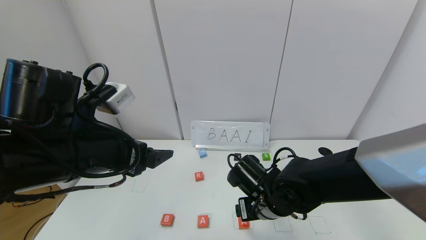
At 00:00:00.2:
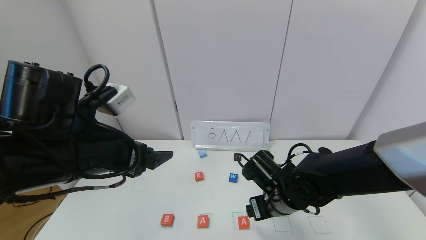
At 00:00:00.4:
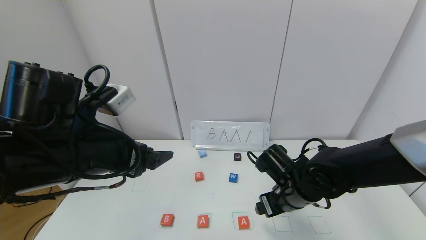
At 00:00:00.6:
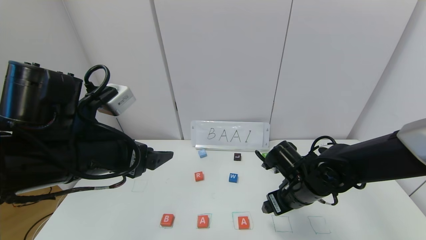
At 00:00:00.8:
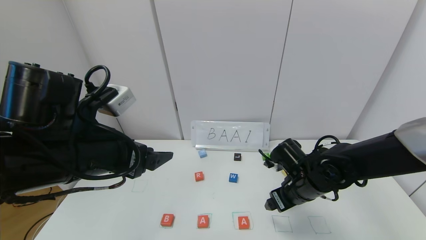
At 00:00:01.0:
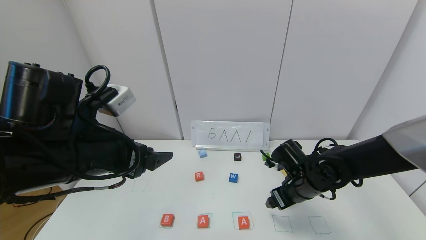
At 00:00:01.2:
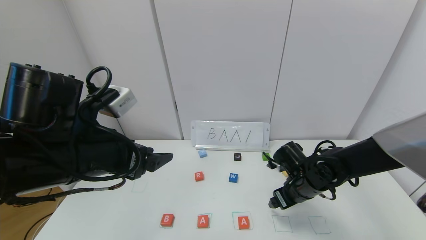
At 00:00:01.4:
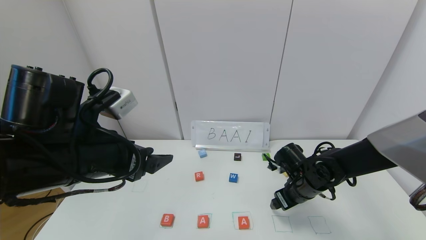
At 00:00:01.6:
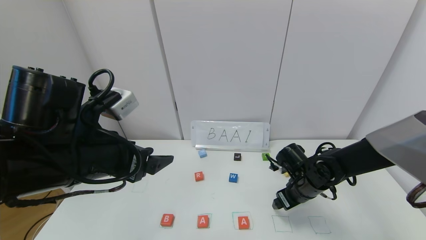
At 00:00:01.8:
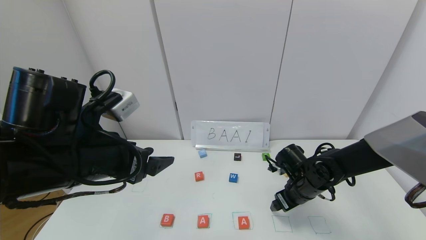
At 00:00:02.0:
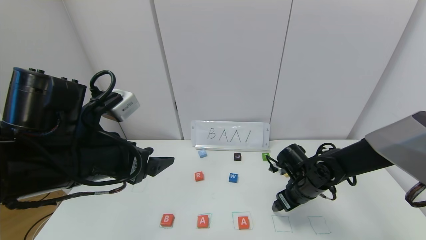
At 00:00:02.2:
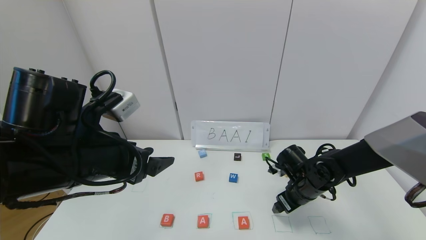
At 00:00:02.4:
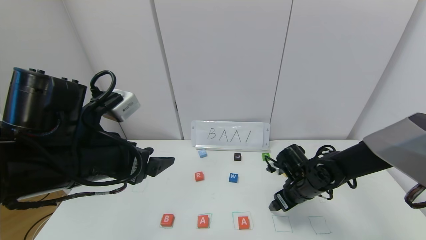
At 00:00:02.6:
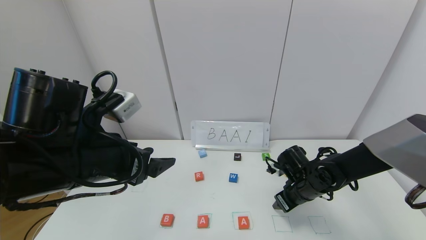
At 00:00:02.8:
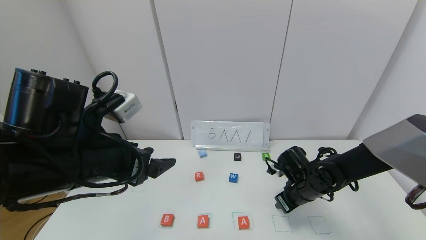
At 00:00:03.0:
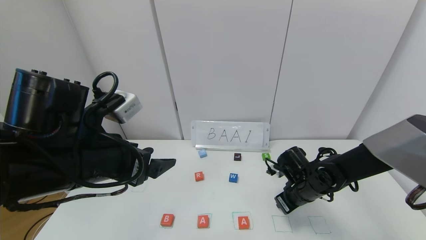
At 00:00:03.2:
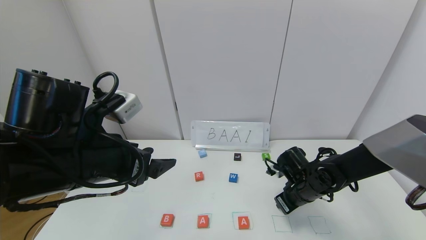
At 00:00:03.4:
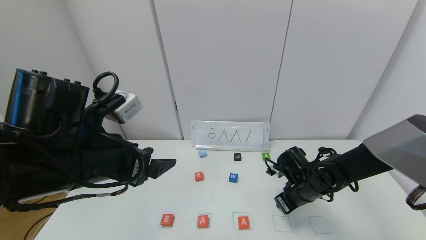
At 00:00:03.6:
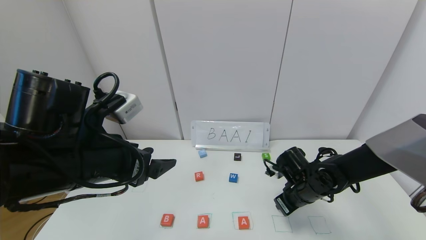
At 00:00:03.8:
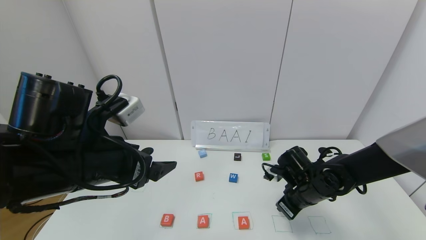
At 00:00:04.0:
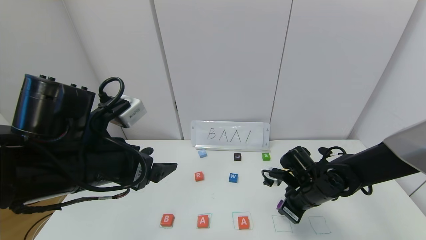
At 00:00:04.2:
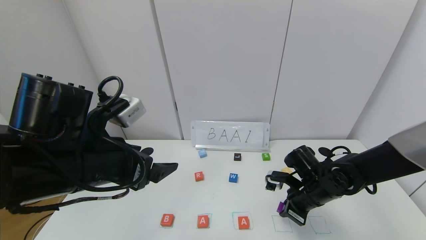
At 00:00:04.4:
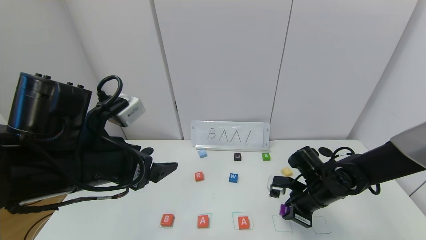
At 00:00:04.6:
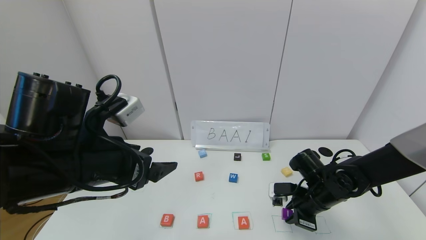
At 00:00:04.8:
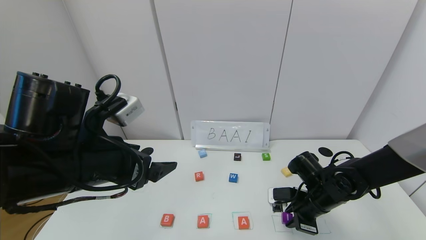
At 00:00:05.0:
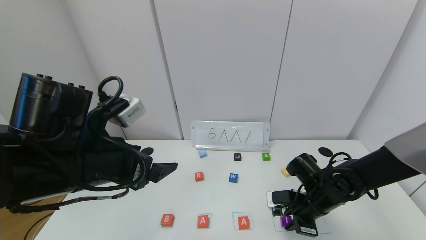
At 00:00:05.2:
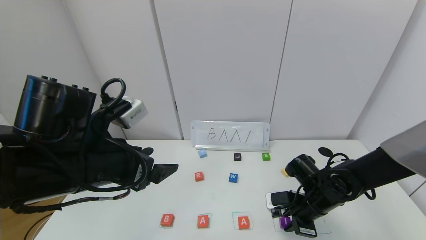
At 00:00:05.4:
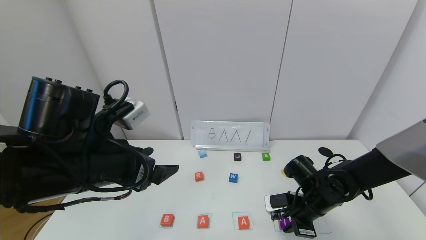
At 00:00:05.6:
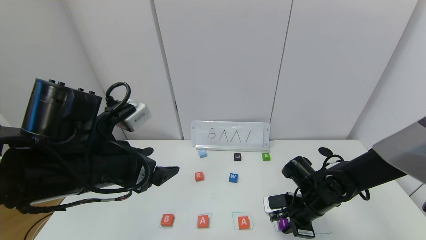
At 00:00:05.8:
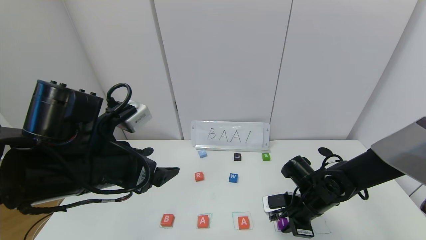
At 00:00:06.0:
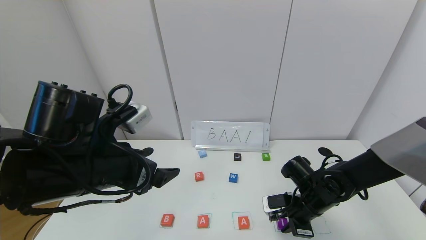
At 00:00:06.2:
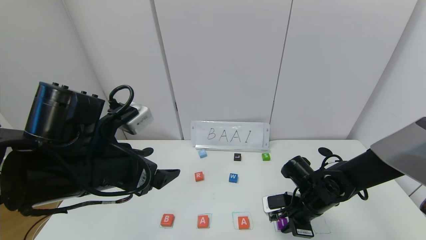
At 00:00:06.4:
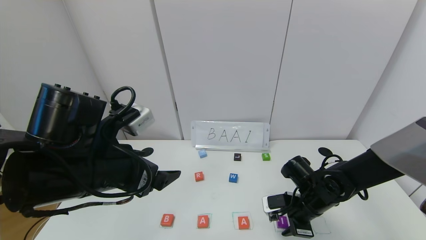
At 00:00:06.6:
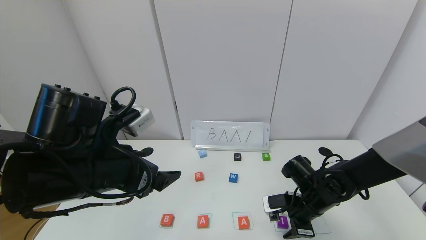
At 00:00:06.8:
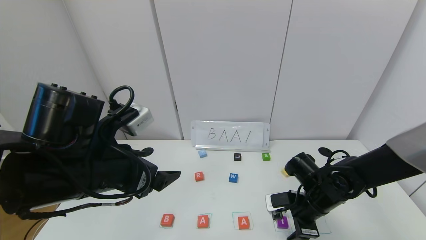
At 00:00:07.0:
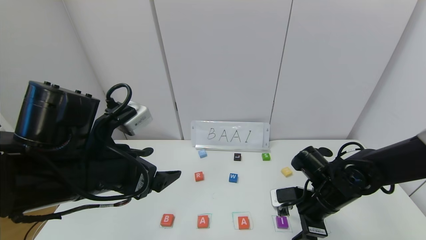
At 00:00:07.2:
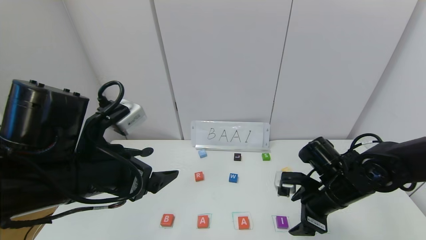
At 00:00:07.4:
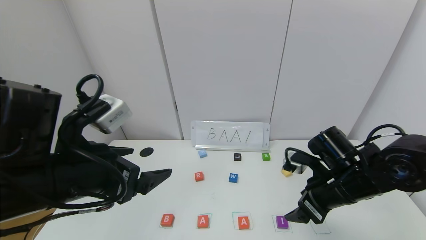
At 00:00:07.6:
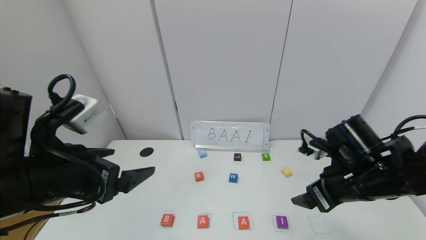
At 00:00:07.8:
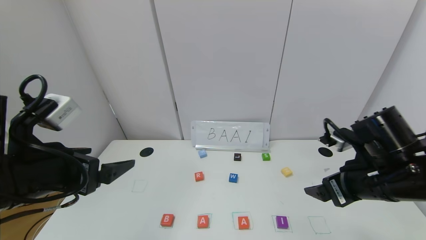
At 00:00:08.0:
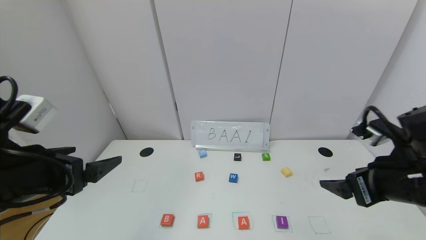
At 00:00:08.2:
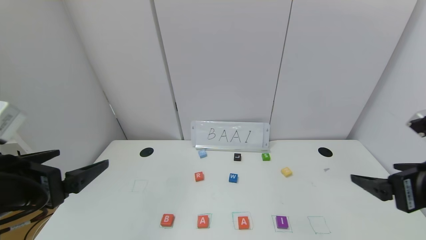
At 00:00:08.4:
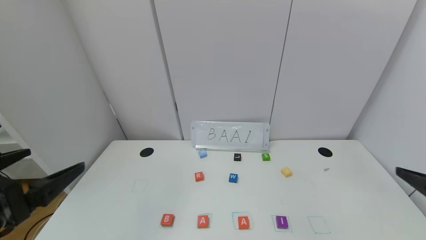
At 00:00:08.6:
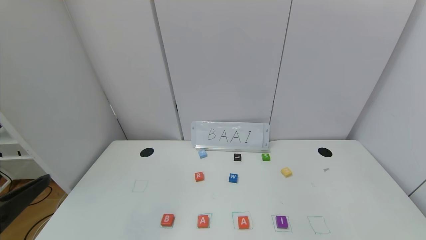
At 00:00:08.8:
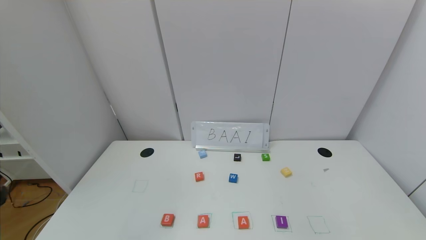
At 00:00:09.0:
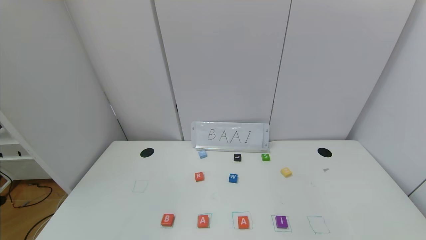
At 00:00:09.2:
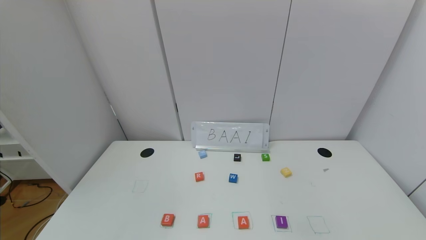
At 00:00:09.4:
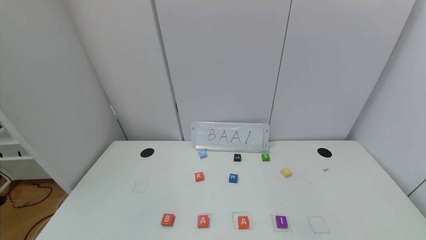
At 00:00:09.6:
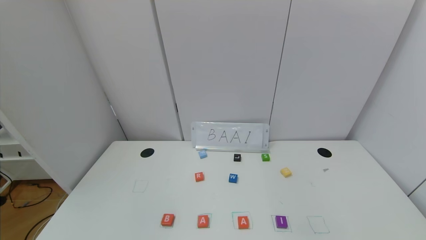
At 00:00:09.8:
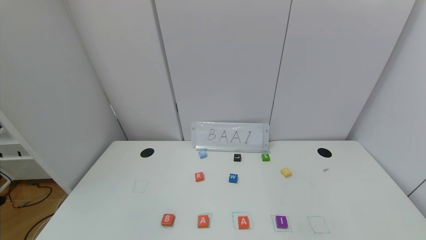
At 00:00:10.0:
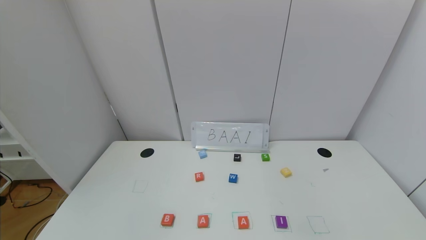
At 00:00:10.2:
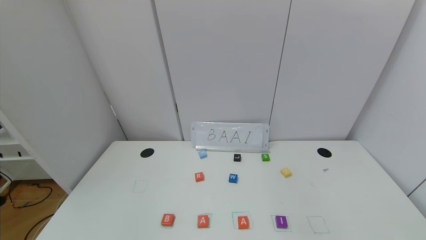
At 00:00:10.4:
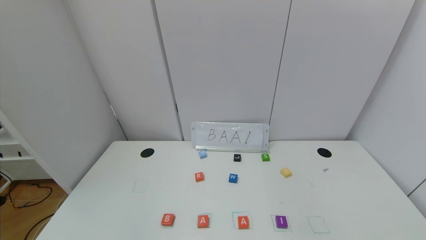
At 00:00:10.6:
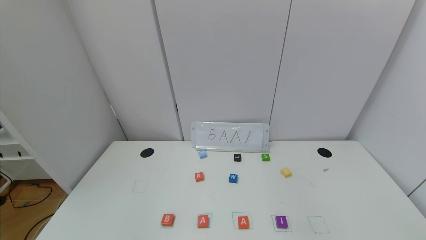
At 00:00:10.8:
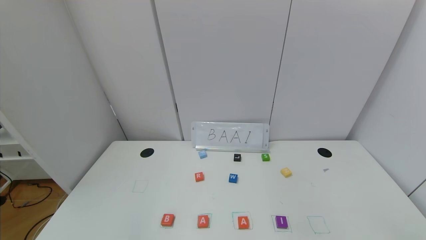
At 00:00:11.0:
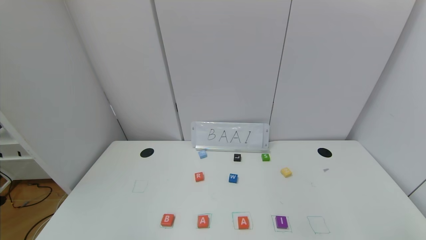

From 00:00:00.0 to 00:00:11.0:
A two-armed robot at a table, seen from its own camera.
Task of the whole recording: use the gripper to find blocks with the letters b, a, a, and i on the table and arrange them into BAAI, then find r and N and turn the arranged baai into brian.
Step, from 00:00:00.0 to 00:00:06.8: Place the block I in the fourth location.
From 00:00:00.0 to 00:00:01.6: The right gripper travels to the right and forward by roughly 15 cm.
From 00:00:01.6 to 00:00:03.2: The right gripper closes.
From 00:00:04.8 to 00:00:06.2: The grippers make only small movements.
From 00:00:06.2 to 00:00:07.8: The right gripper moves upward and backward, roughly 20 cm, and opens up, while the left gripper heads to the left, covering some 5 cm.
From 00:00:07.8 to 00:00:09.4: The left gripper moves backward, roughly 20 cm. The right gripper travels backward and to the right by roughly 30 cm.
